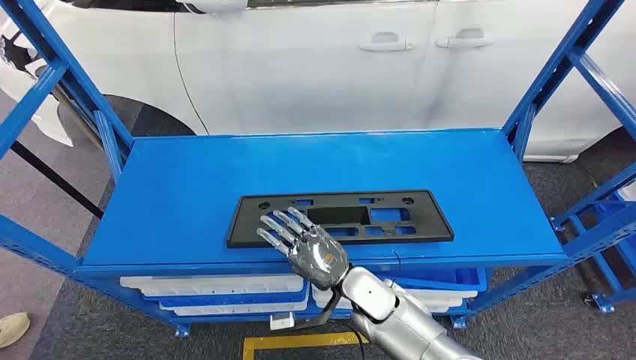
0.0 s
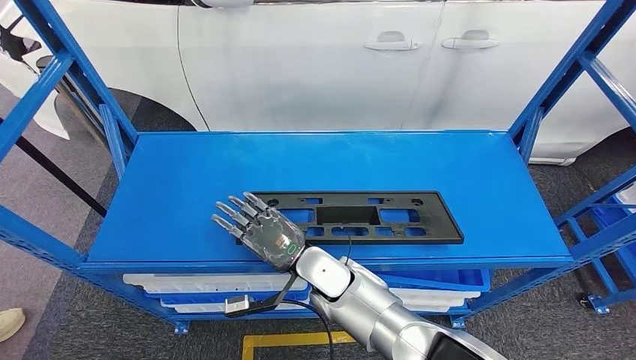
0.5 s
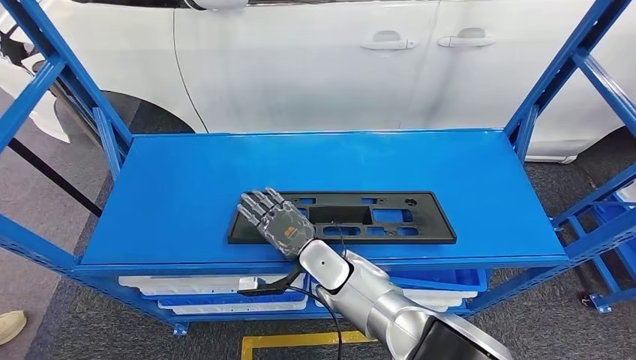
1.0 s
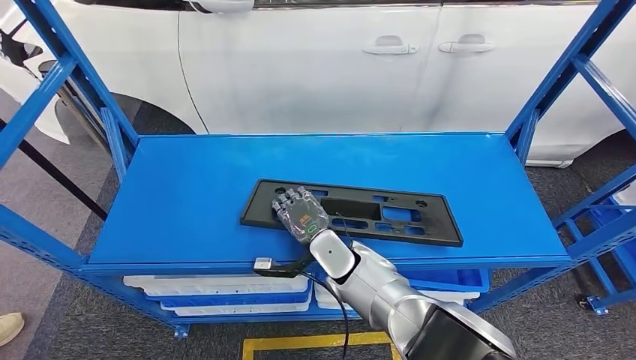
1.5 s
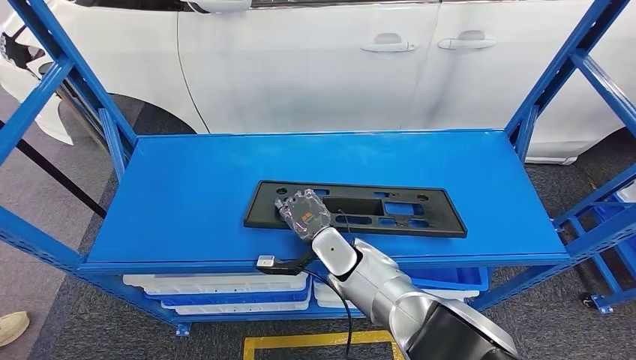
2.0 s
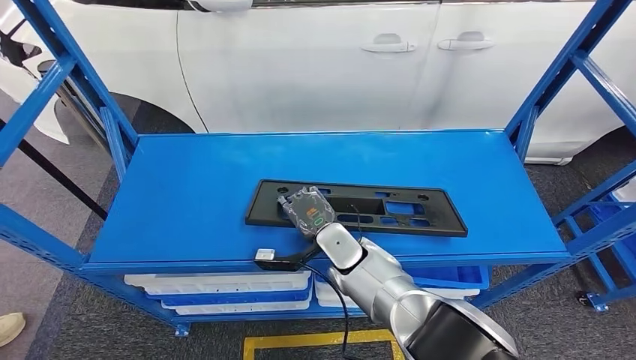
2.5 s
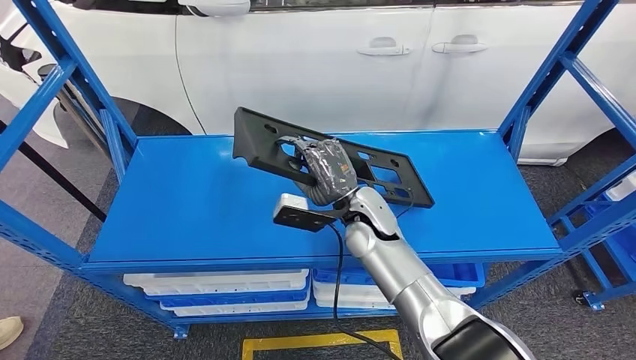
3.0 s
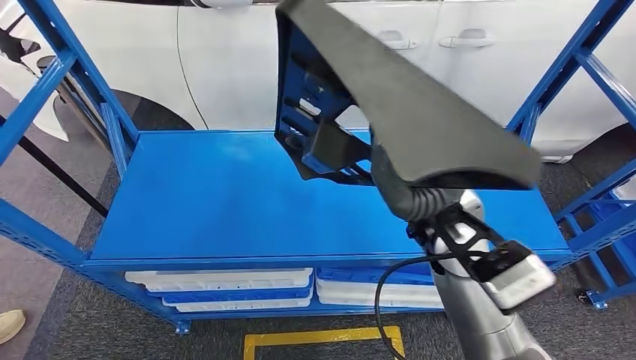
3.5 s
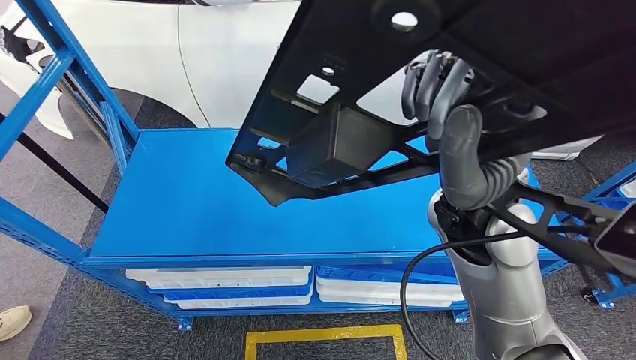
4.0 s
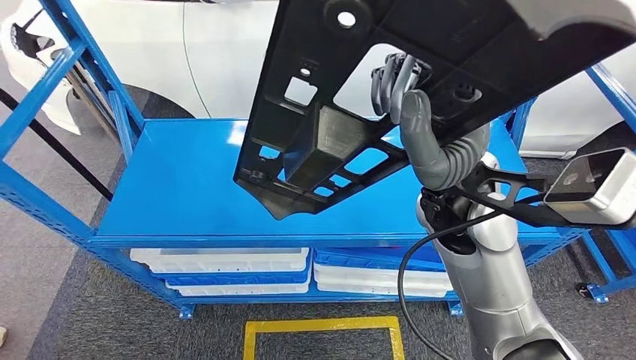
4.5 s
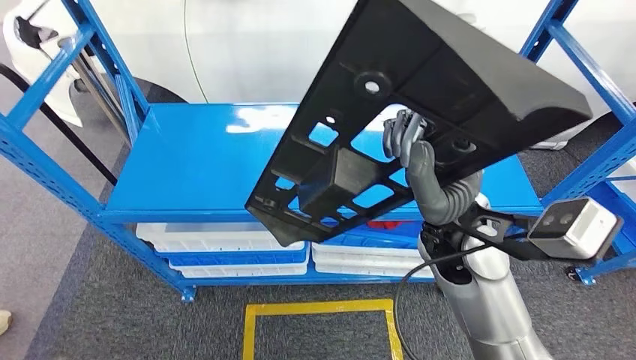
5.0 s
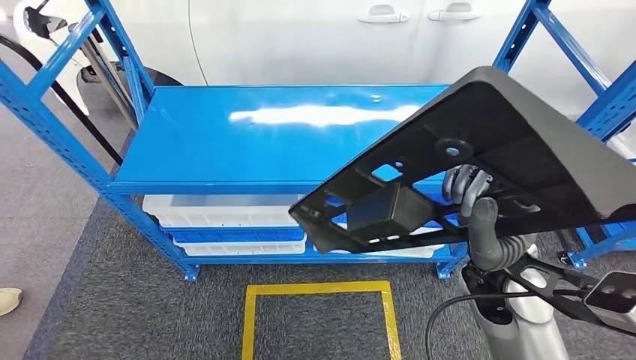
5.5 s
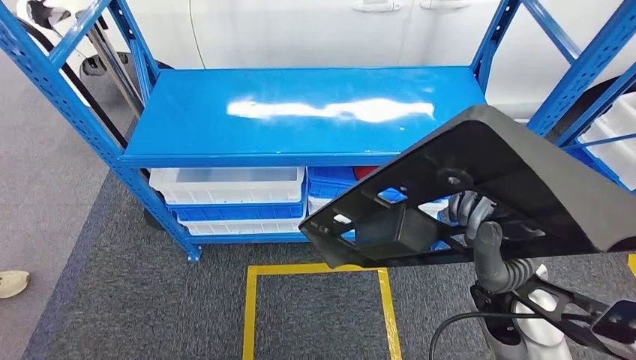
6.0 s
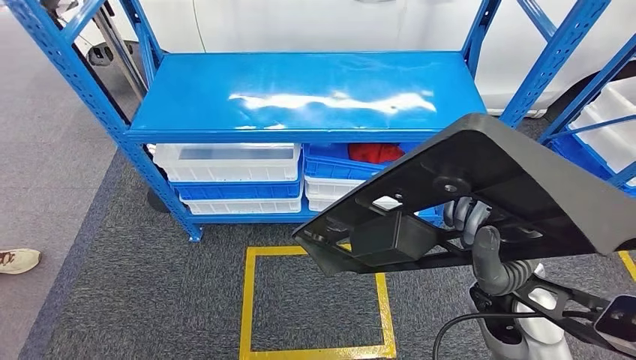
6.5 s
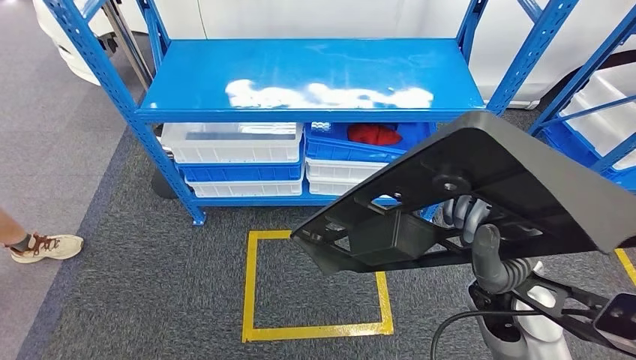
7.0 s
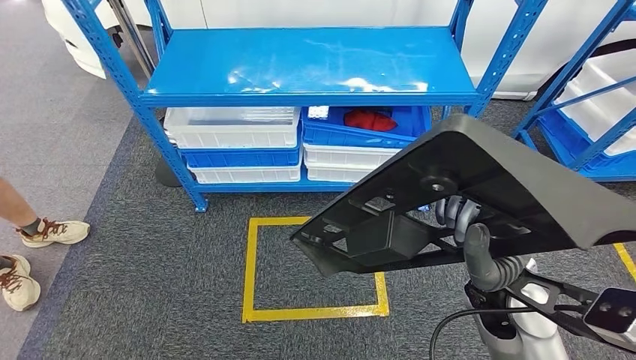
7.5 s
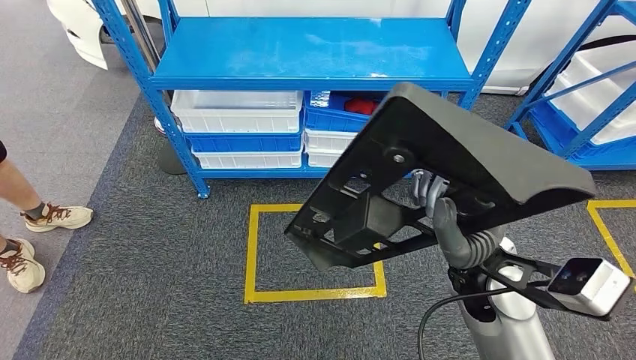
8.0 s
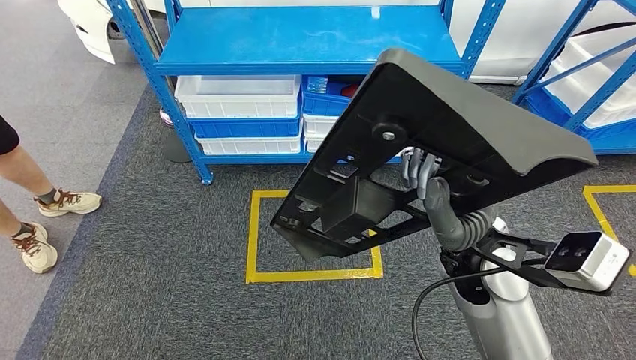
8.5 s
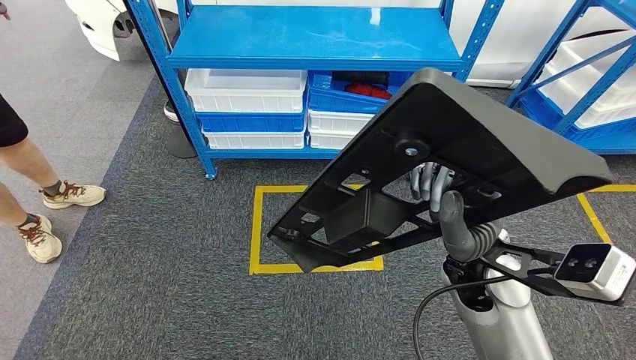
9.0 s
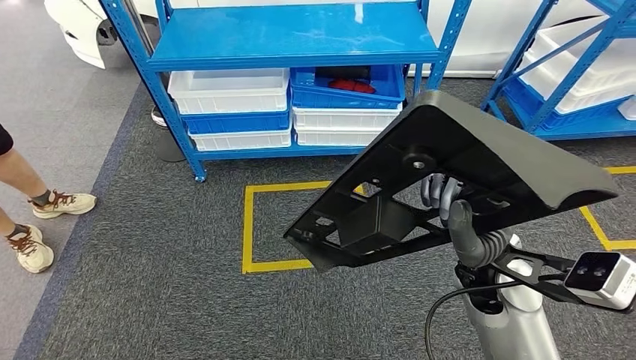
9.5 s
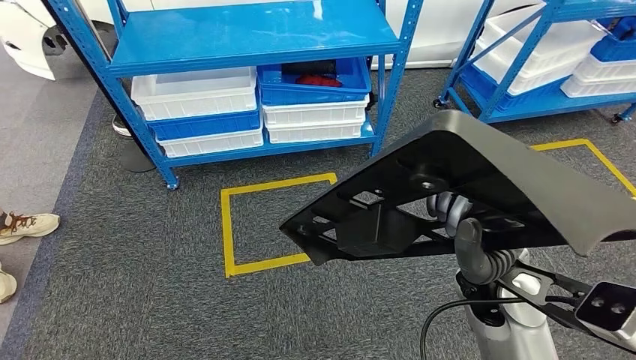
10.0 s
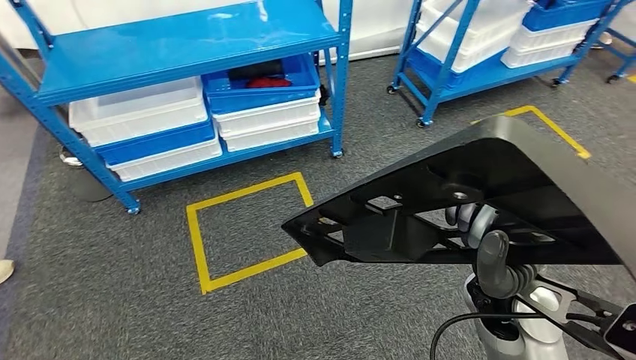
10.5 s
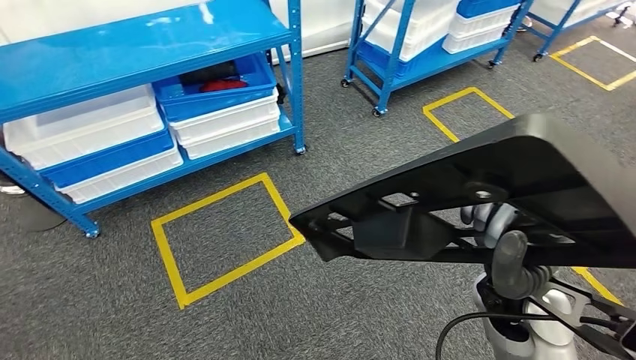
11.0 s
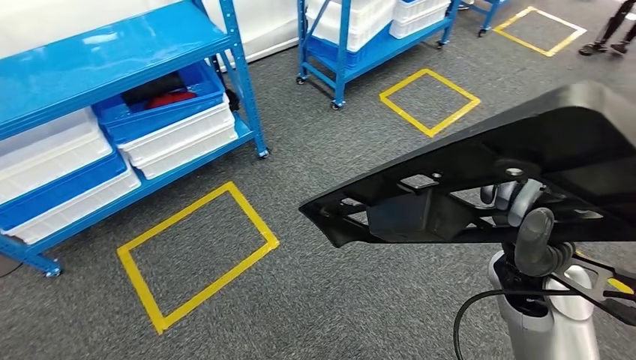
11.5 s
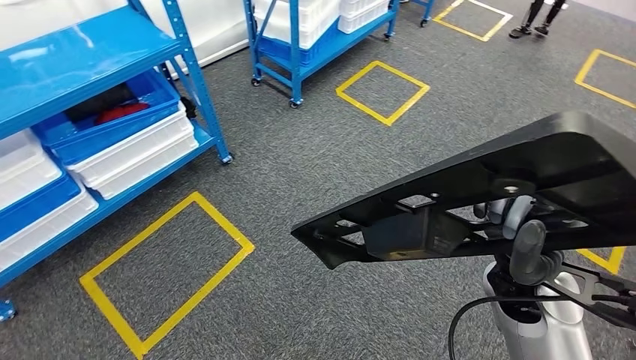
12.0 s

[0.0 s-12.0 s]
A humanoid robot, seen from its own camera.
Step, 0.0 to 6.0 s: Pick up the large material from the shelf.

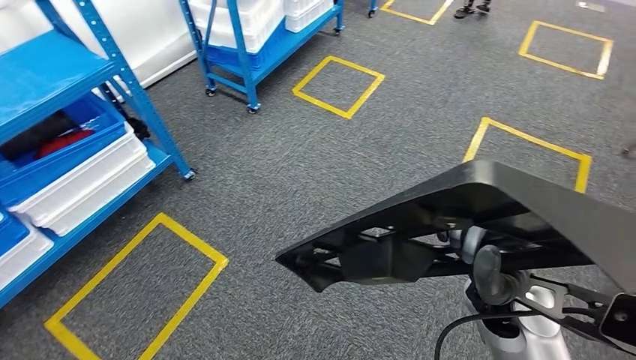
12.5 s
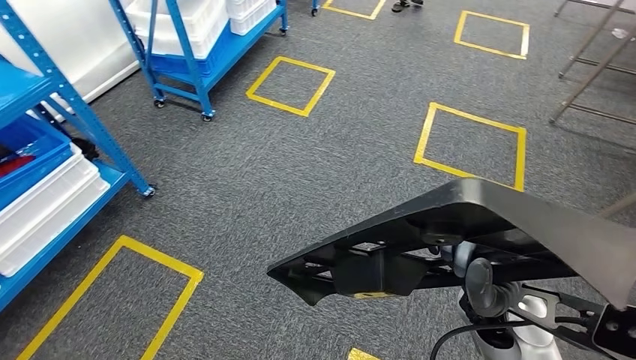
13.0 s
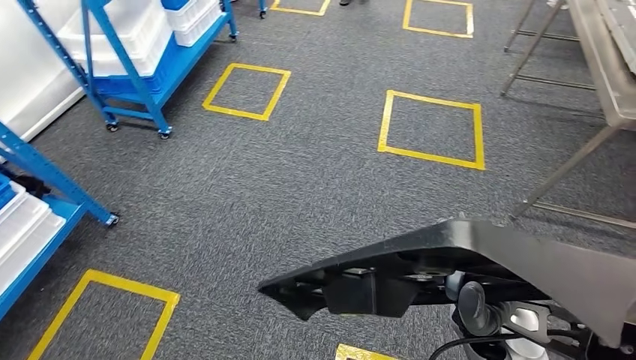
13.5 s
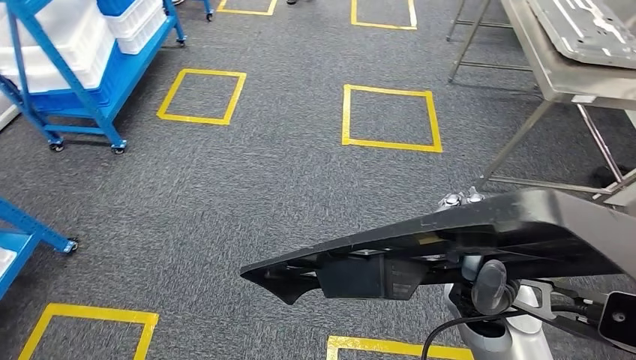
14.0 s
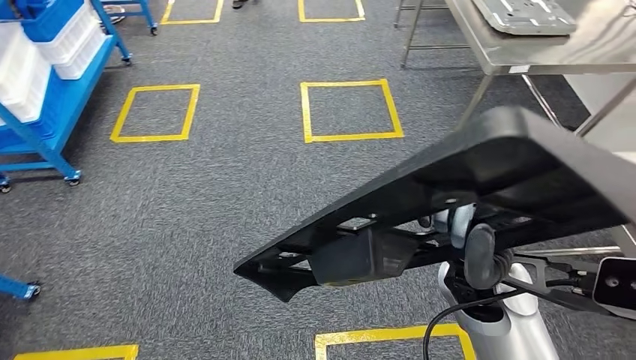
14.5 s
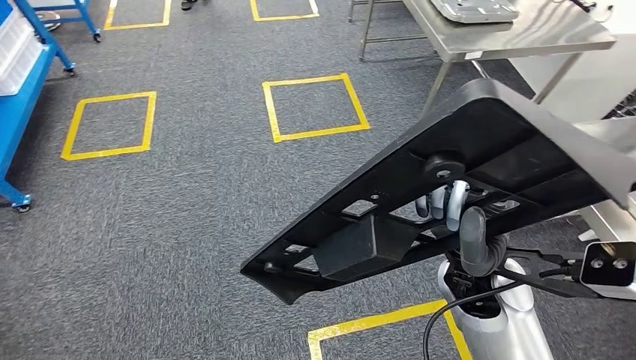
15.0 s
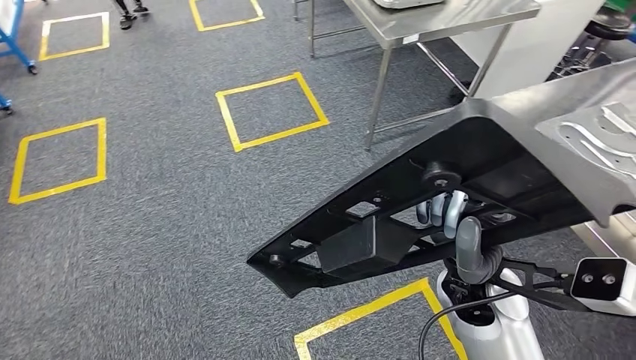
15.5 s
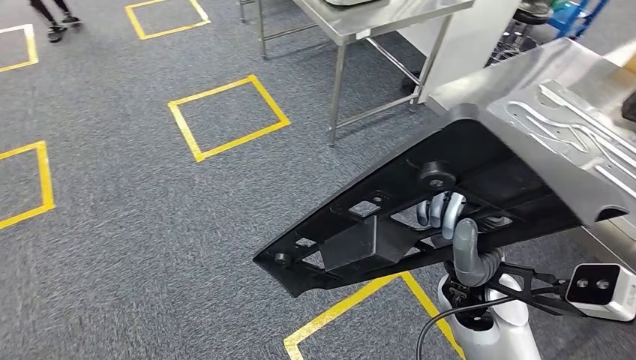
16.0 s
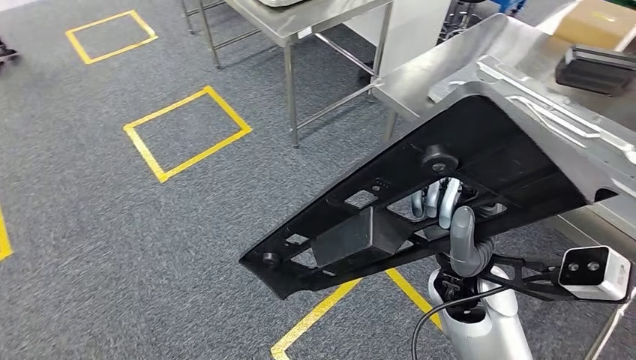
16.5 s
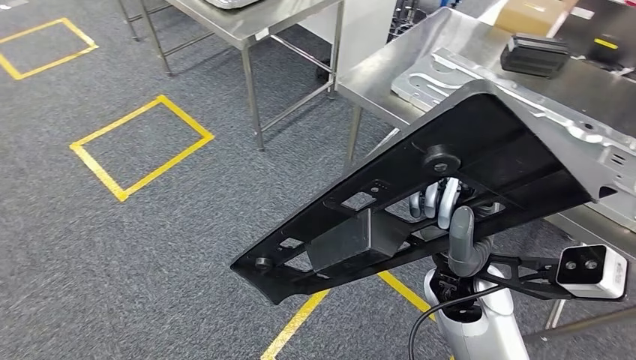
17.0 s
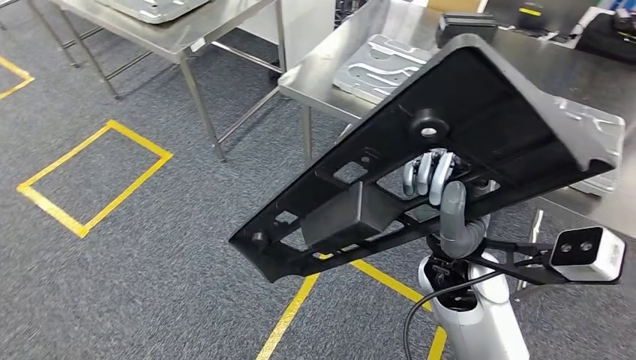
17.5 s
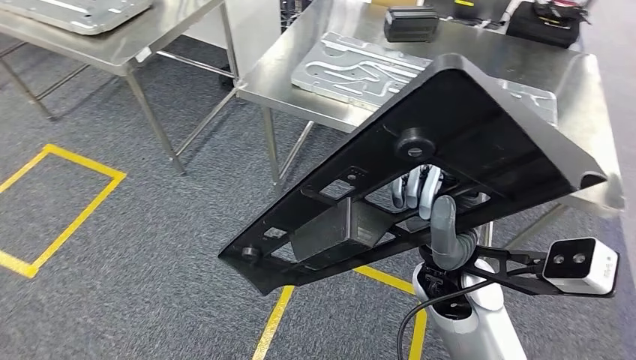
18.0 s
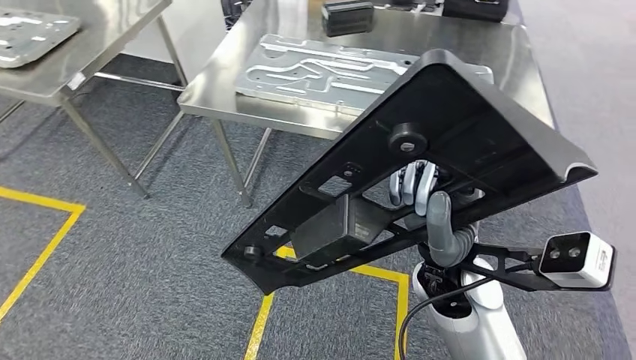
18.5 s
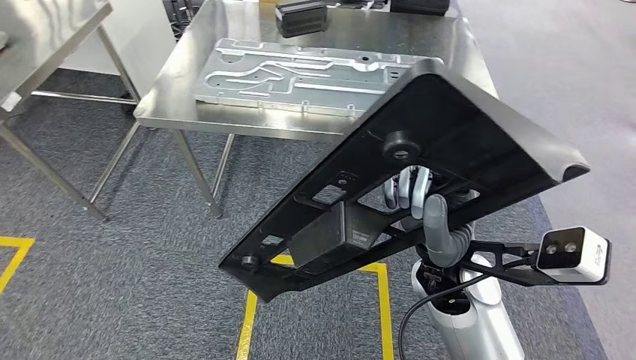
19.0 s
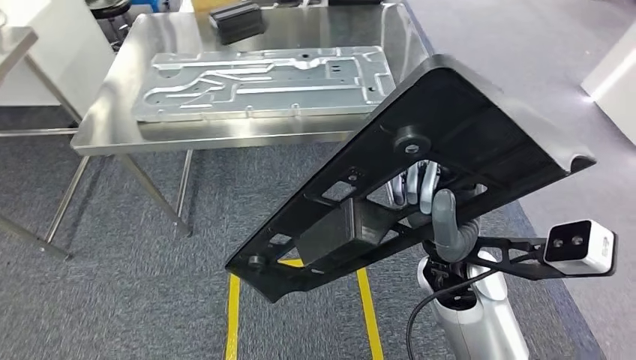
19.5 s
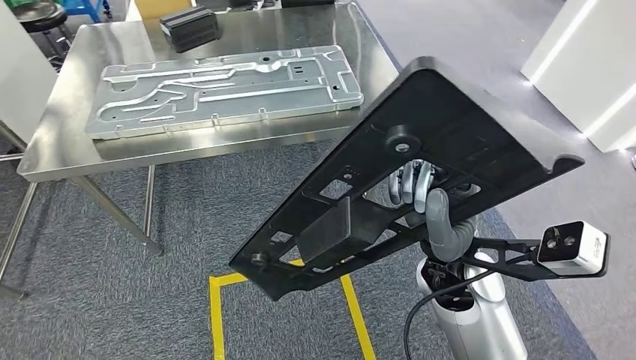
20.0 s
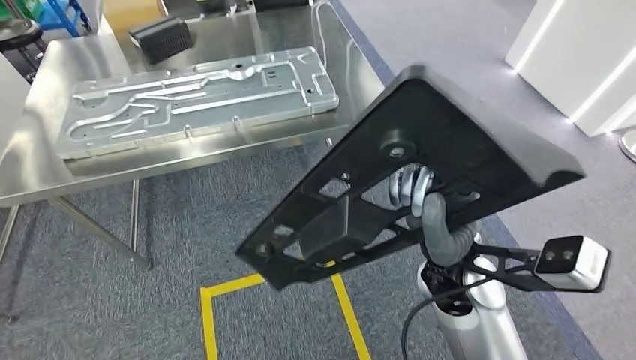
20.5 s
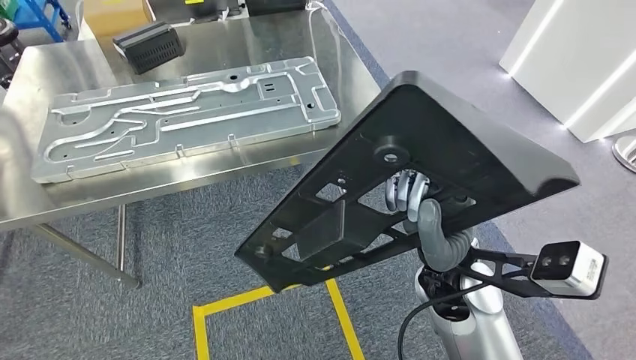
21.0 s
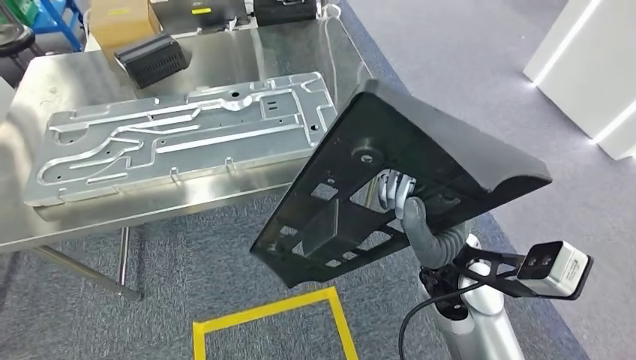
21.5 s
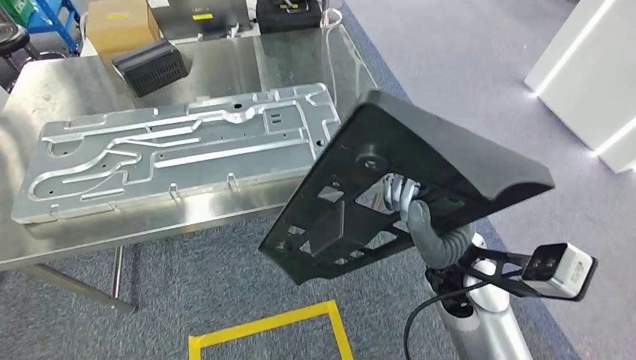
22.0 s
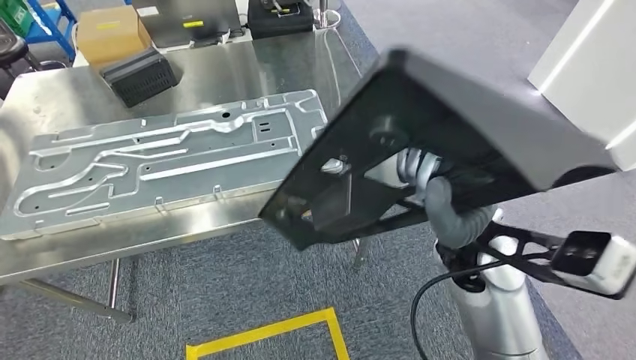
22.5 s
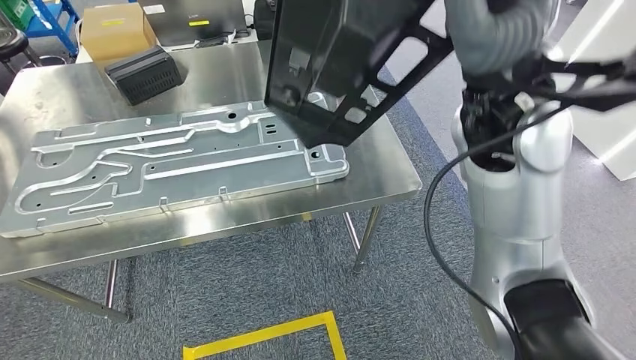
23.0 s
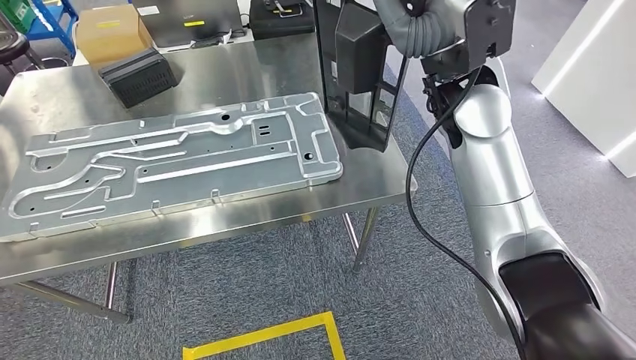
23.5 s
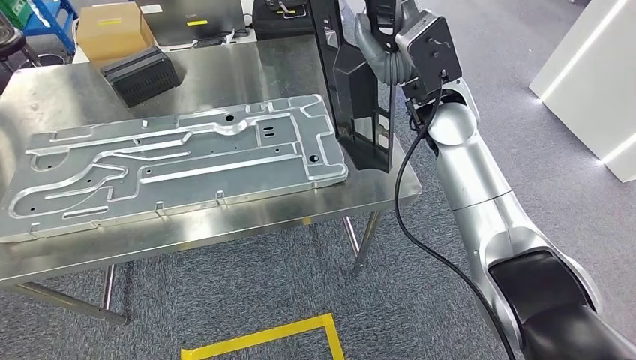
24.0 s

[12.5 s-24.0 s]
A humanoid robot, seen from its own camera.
Step, 12.5 to 23.5 s: Insert the large material into the corresponding slot on the workbench.
